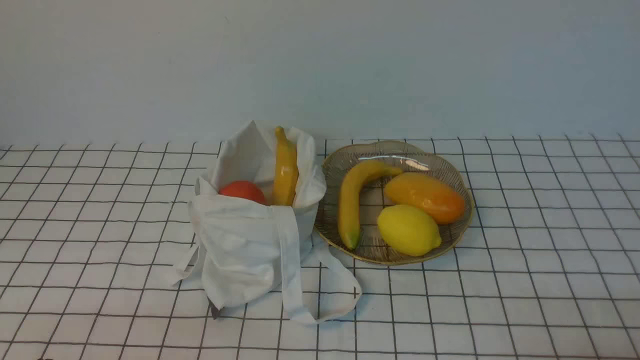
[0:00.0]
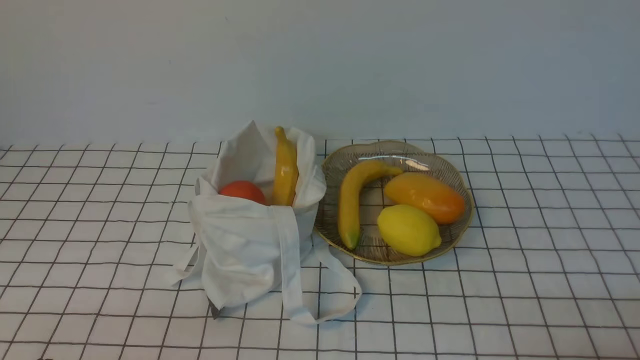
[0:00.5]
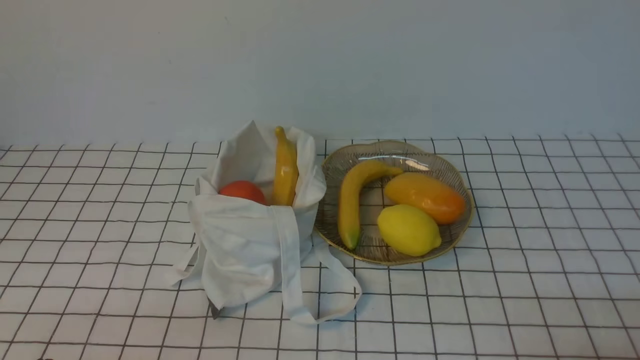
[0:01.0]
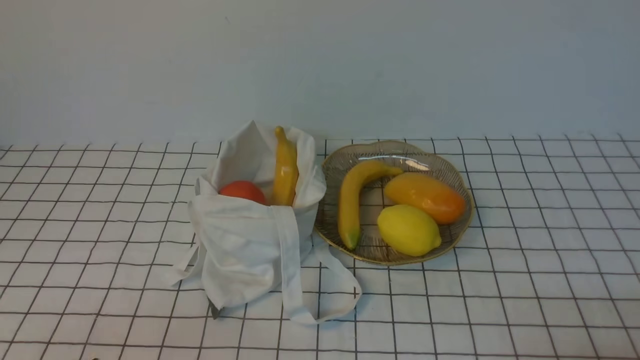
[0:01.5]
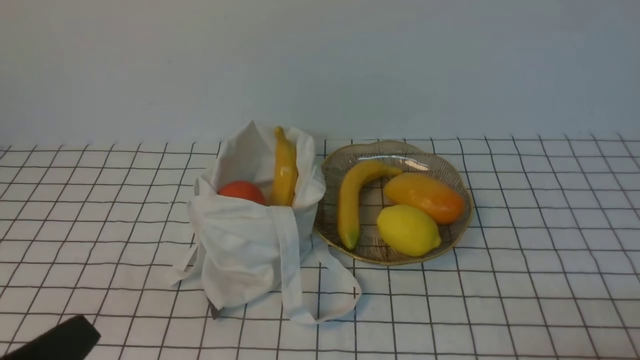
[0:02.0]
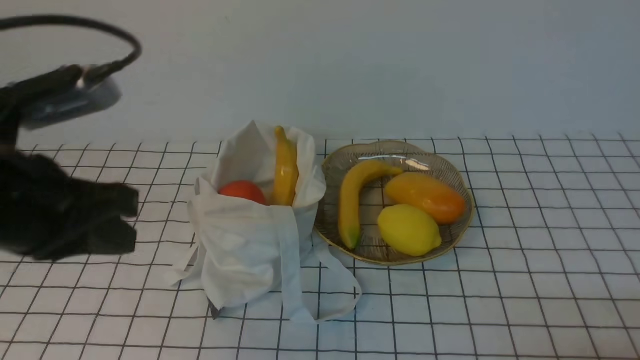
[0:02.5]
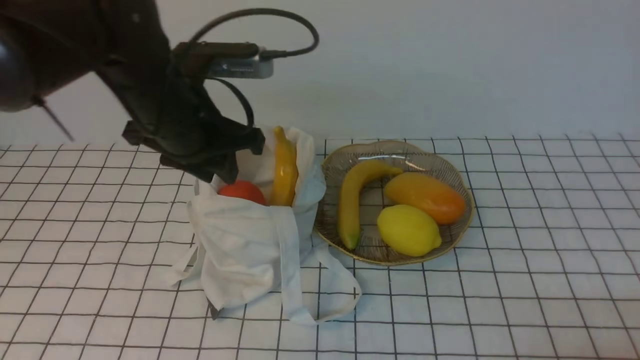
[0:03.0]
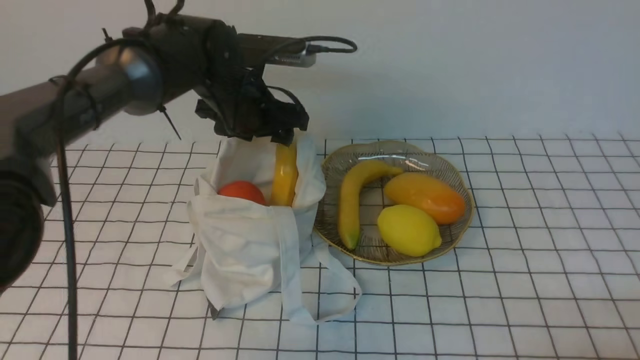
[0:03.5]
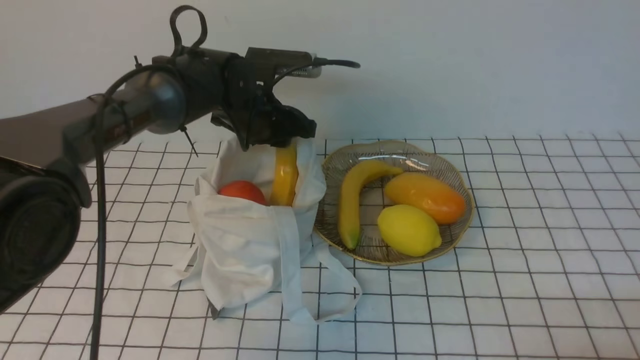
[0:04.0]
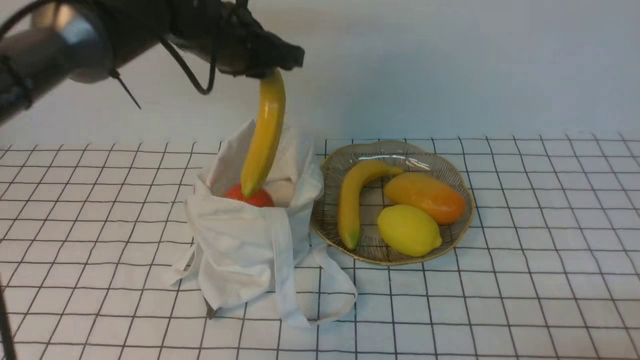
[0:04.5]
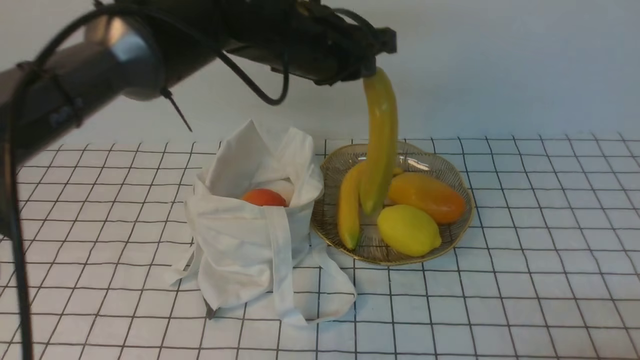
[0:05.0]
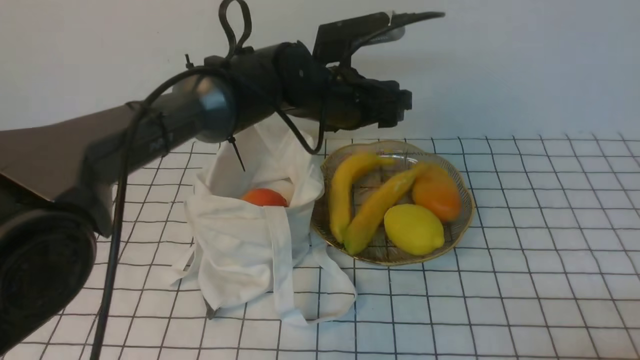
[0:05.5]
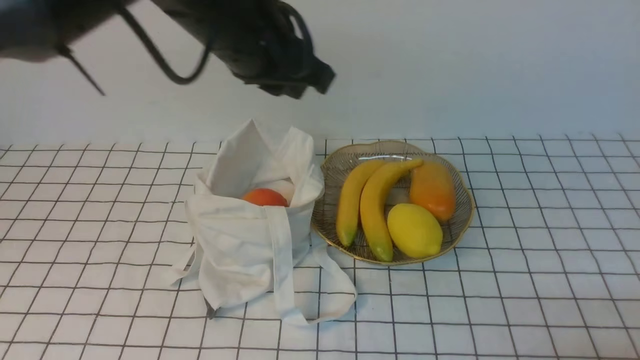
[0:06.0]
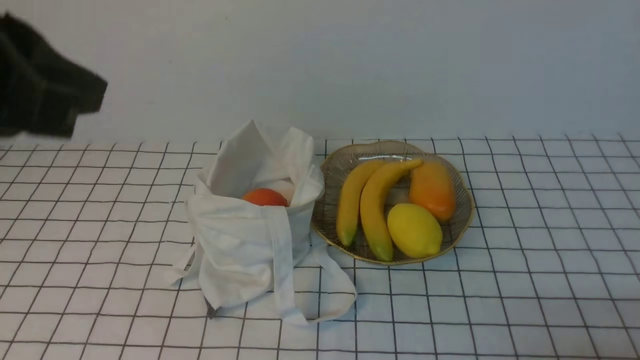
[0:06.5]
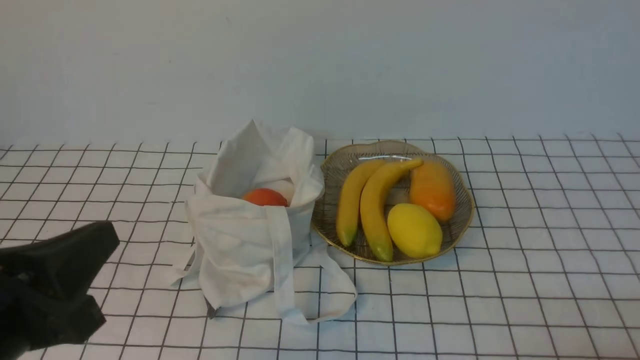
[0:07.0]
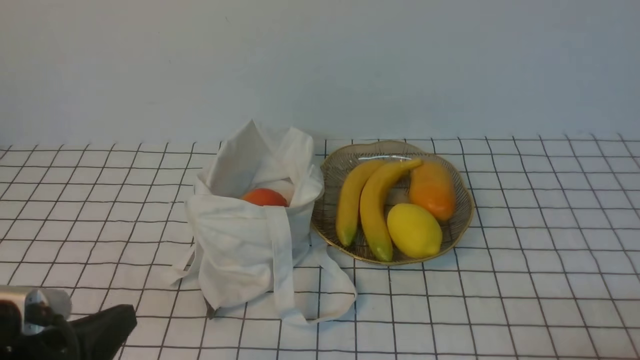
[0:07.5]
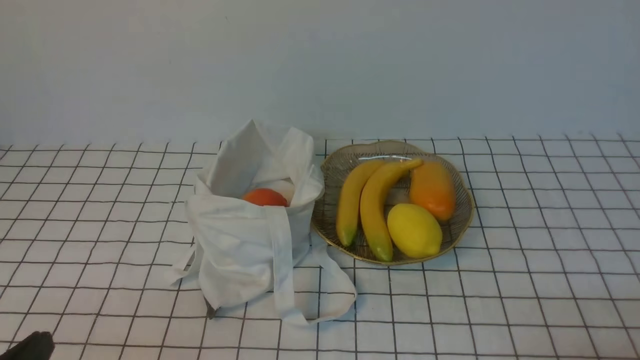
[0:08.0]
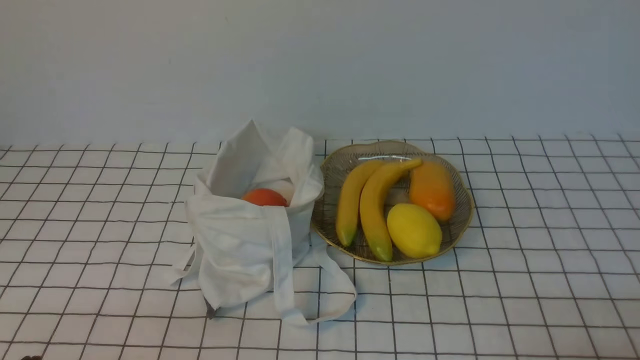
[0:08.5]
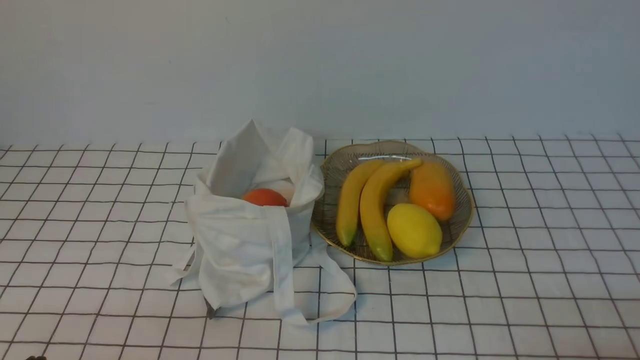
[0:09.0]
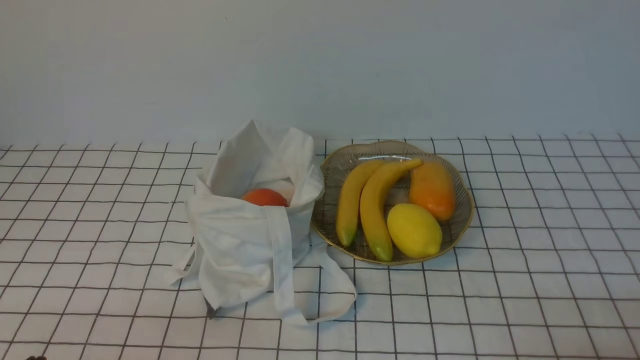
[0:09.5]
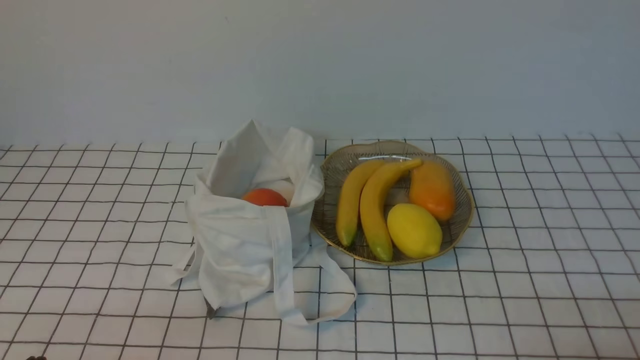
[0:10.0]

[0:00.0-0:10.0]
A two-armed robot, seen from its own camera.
Step, 0:00.0 to 0:04.0: use the left arm to grab a banana from the bag.
Step, 0:04.5 to 0:05.5: use the left arm to put the banana into the empty plate on the right.
0:02.0 to 0:04.0: The left gripper is displaced forward by roughly 40 cm, and opens up.
0:04.0 to 0:06.0: The left gripper goes up and down, about 15 cm each way, reversing 2 times, and closes and opens again.
0:06.0 to 0:08.0: The left gripper is displaced backward, to the left and downward by some 40 cm, and closes its fingers.
